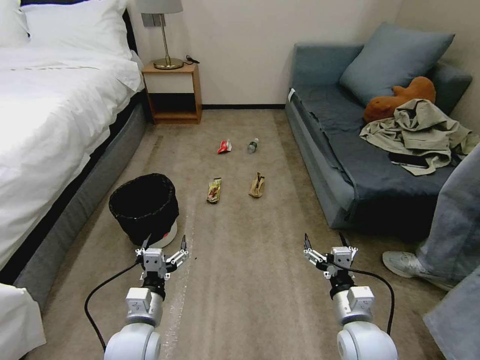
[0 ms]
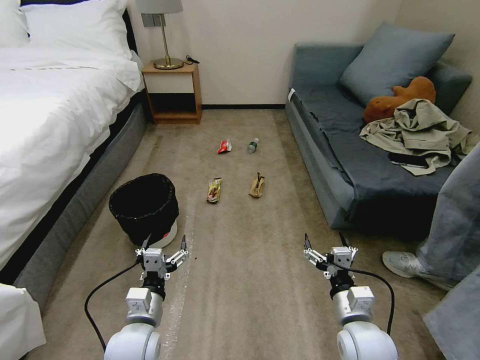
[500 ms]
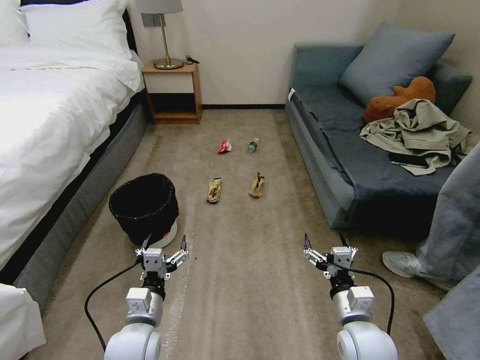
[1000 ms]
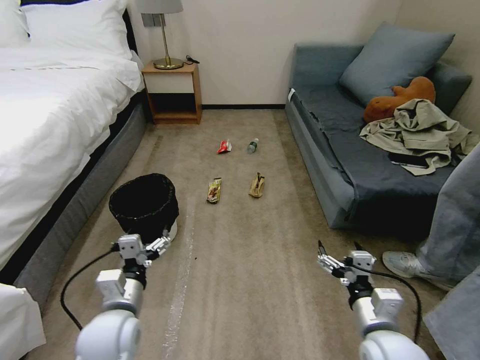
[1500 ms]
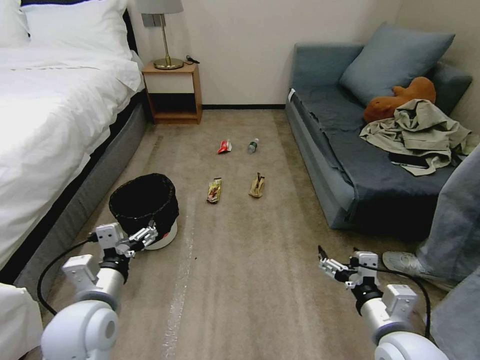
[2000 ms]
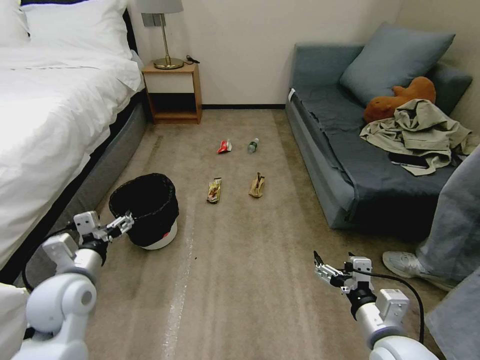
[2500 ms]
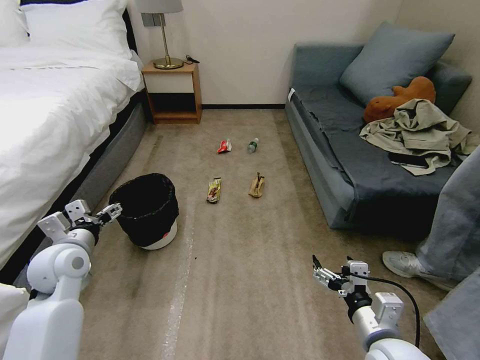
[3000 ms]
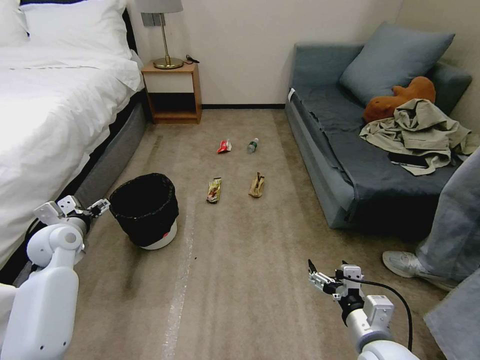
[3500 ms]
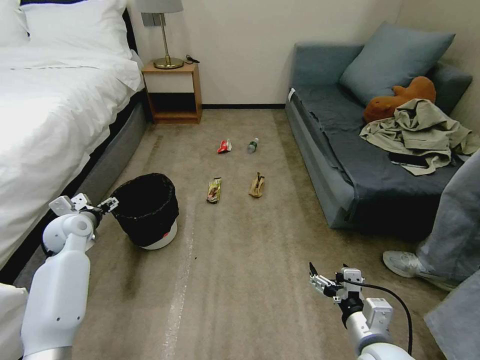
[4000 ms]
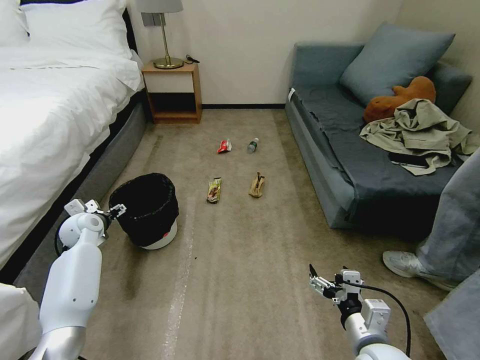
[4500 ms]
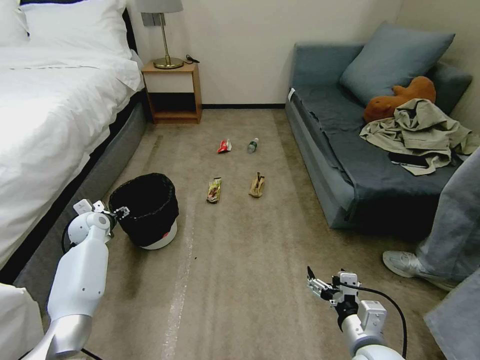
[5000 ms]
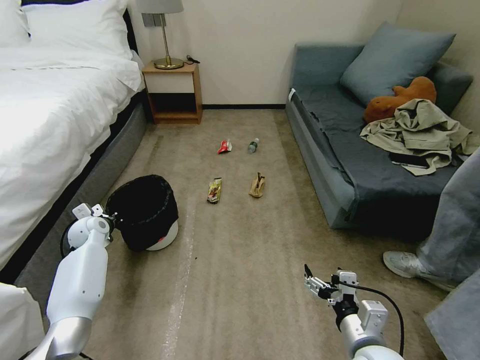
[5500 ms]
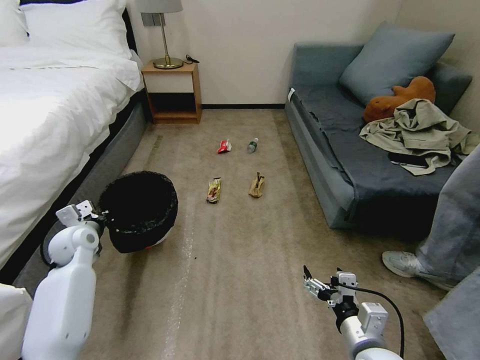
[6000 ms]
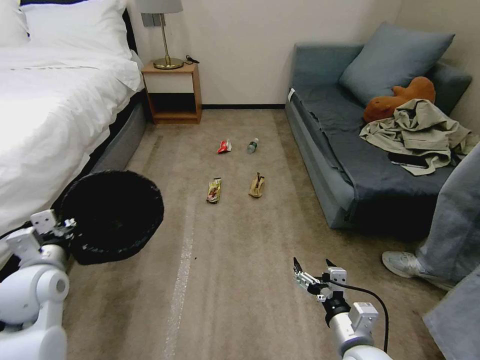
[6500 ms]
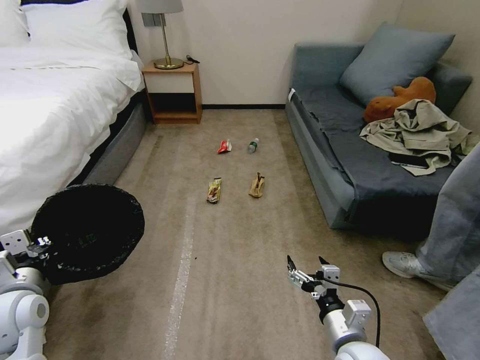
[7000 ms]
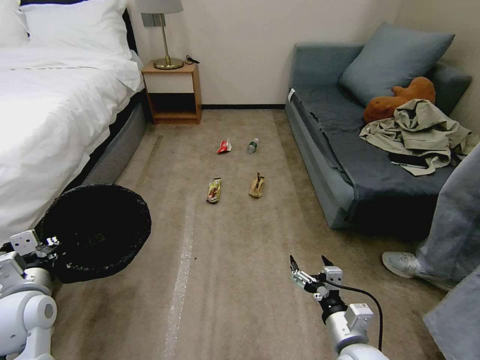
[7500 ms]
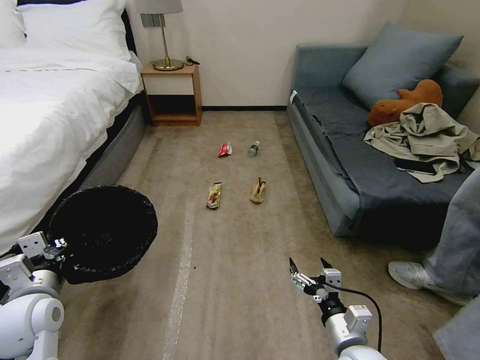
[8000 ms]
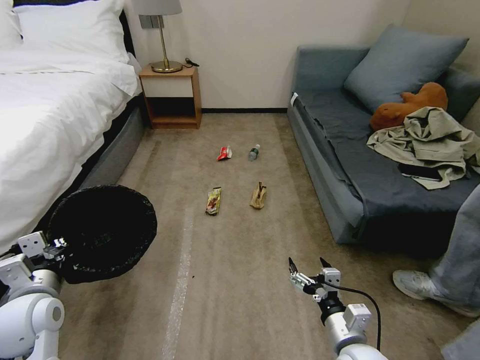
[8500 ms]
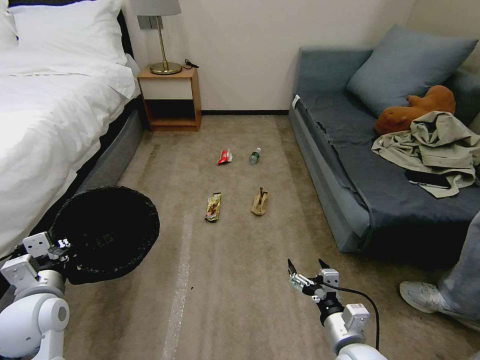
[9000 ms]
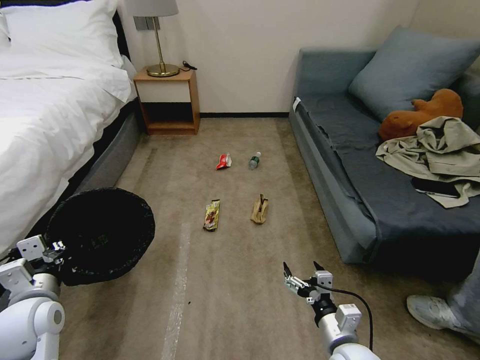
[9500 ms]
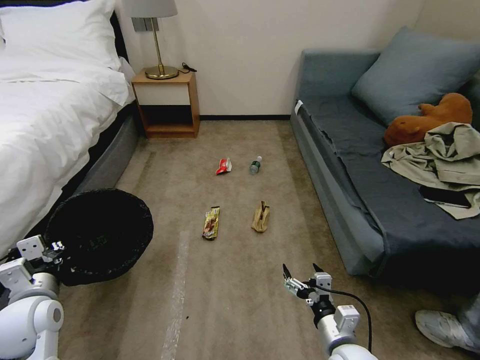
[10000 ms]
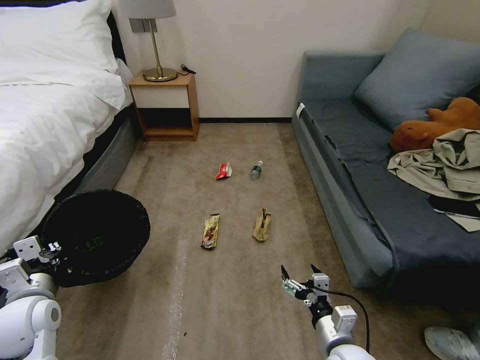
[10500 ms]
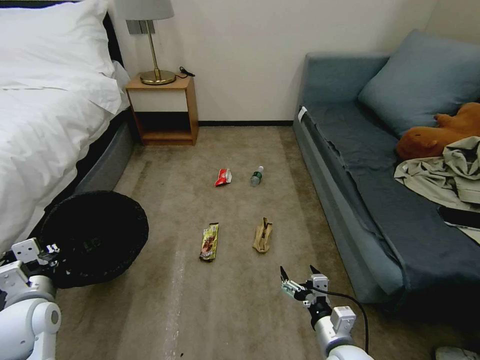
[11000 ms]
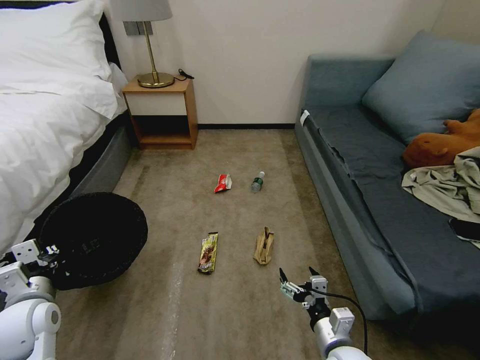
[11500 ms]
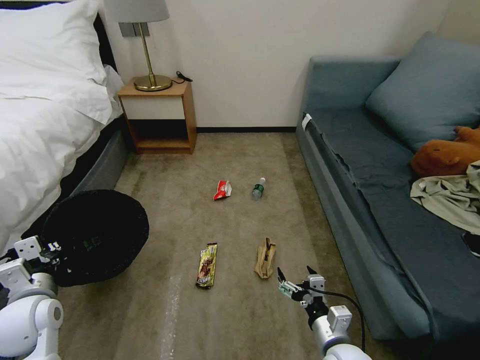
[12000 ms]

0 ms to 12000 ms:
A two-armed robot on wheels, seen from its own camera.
Task of the whole recording: Pick up the trash bin, then pick up the garbage on the floor and place it into the trash bin.
2000 ms to 4000 ms: The left gripper goes some 30 cm forward and to the left.
4000 ms to 6000 ms: The left gripper closes.
6000 ms to 8000 ms: The left gripper is displaced backward by roughly 15 cm.

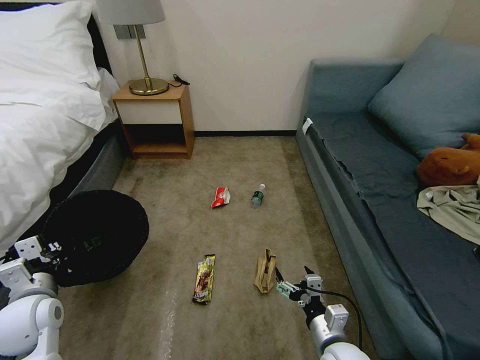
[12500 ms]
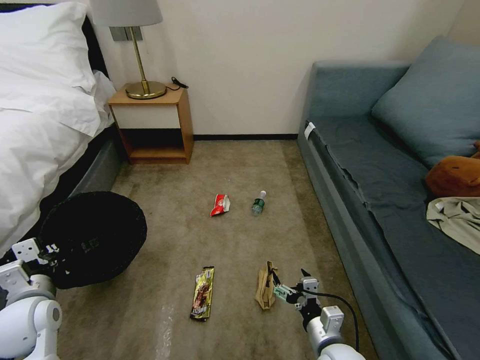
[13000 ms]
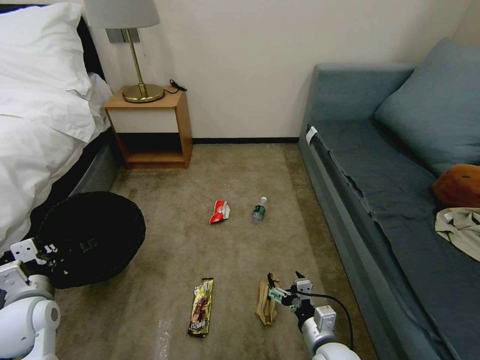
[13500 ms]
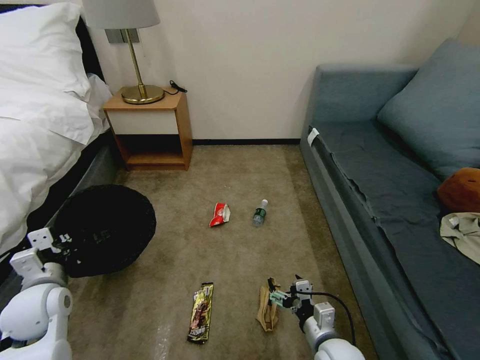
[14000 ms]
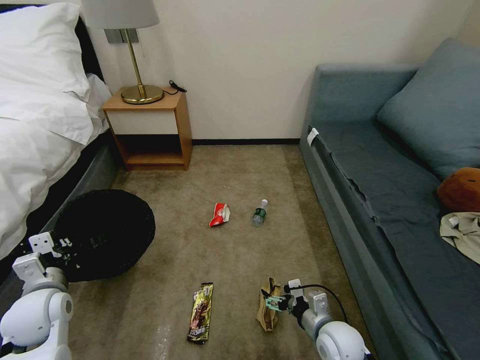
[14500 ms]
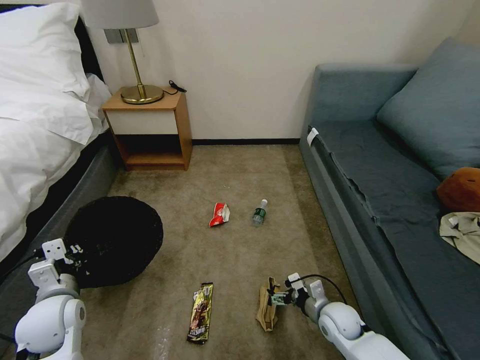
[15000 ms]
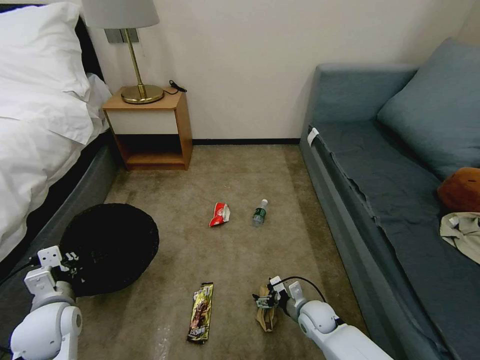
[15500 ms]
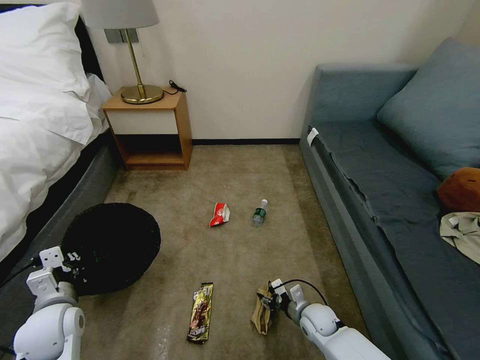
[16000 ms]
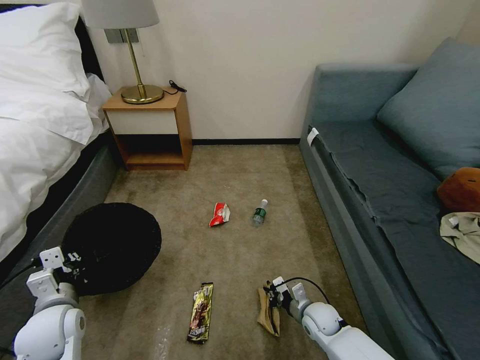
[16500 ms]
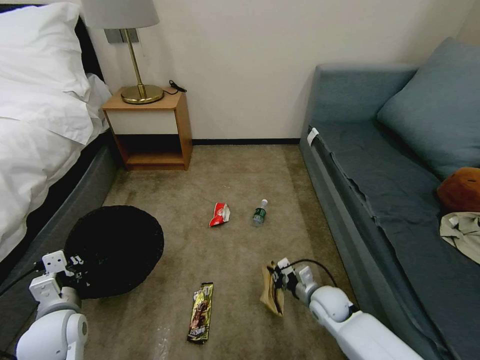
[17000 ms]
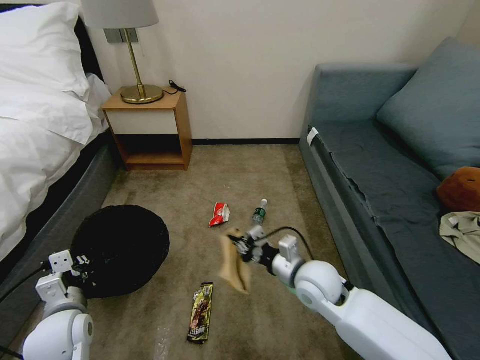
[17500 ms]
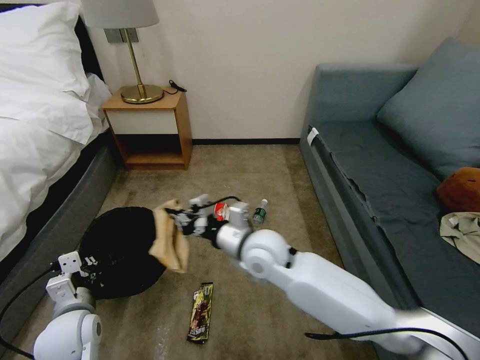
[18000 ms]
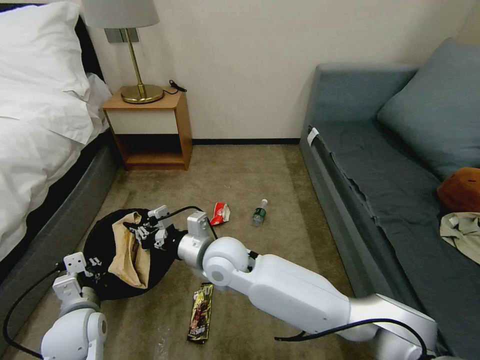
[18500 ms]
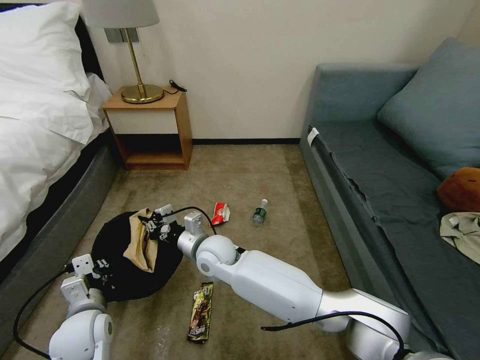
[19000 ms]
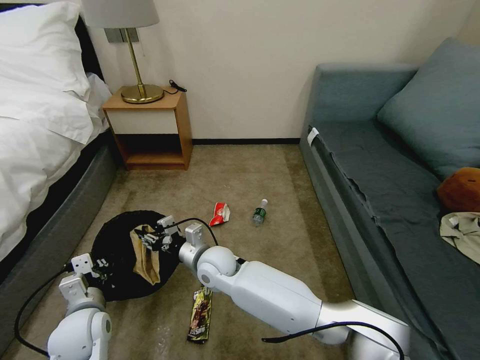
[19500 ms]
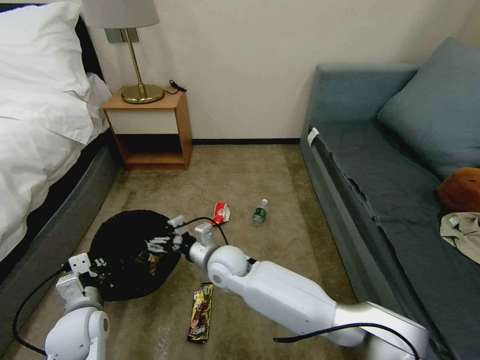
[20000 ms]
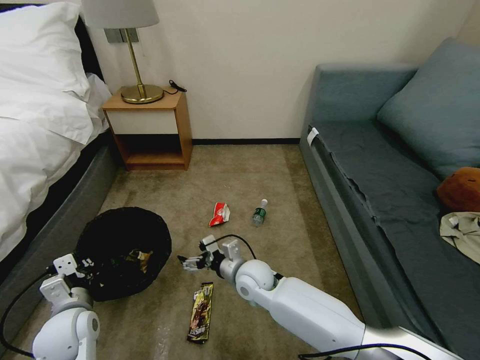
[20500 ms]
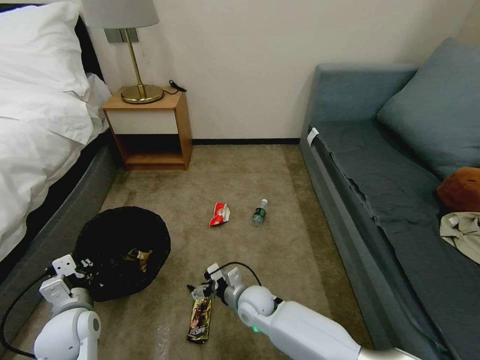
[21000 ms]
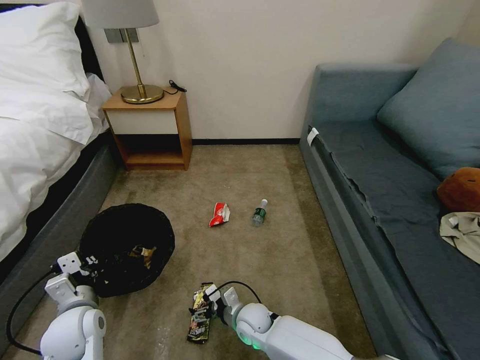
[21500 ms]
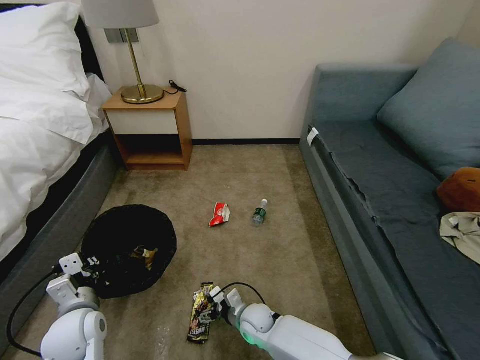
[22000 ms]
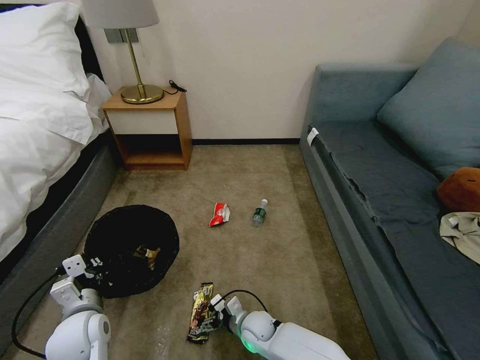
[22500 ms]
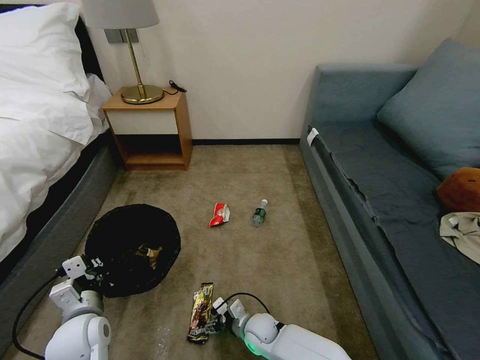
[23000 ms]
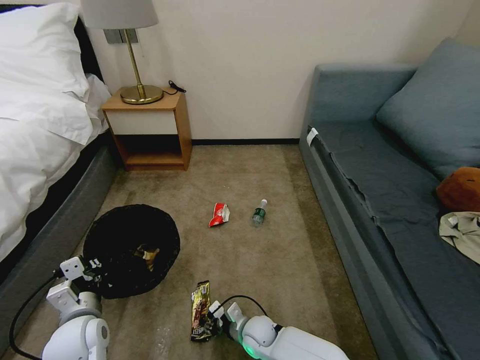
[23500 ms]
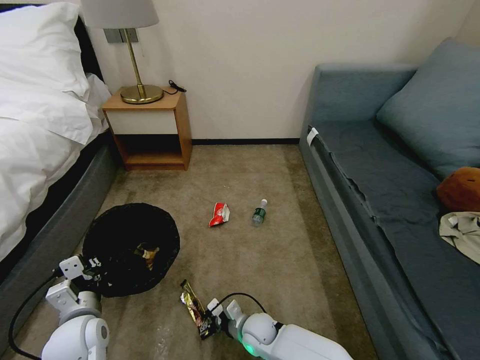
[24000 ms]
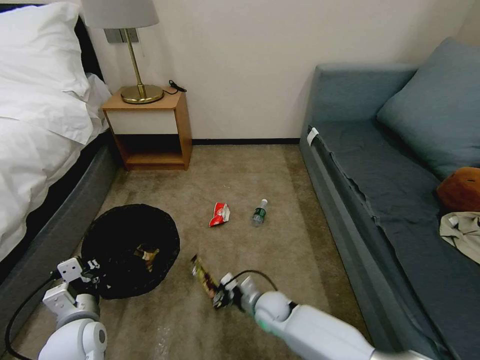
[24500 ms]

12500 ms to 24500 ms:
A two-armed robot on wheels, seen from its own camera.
Task of the whole recording: Pick up the trash bin, then pick up the garbage on the floor and place it into the trash bin.
12500 ms to 14500 ms: The right gripper shifts by roughly 5 cm.
14500 ms to 16500 ms: The right gripper is displaced downward and forward by approximately 10 cm, and closes up.
16500 ms to 18500 ms: The right gripper shifts some 35 cm to the left and upward.
18500 ms to 20500 ms: The right gripper heads downward and to the right, covering approximately 15 cm, and opens.
20500 ms to 22500 ms: The right gripper moves downward and backward, approximately 20 cm.
22500 ms to 24500 ms: The right gripper shifts by some 10 cm, and closes up.

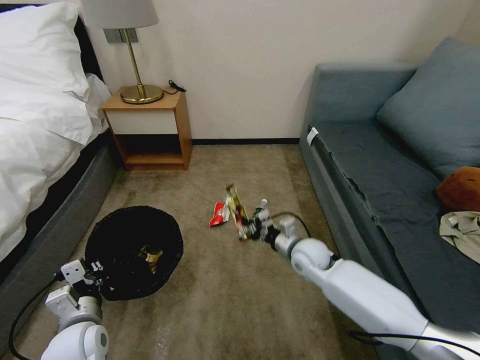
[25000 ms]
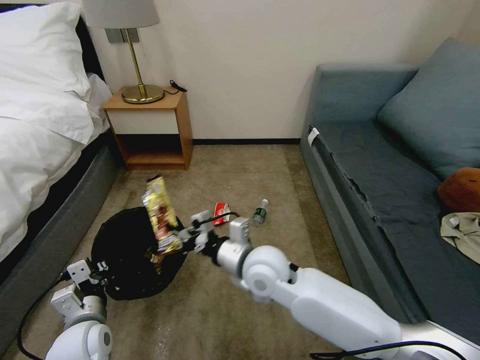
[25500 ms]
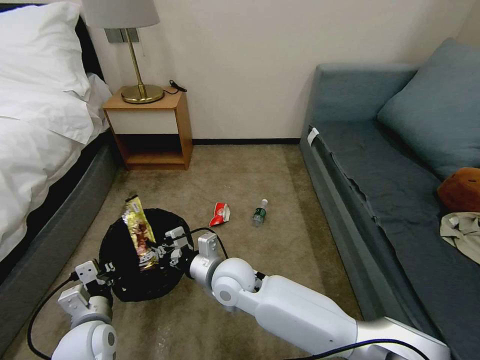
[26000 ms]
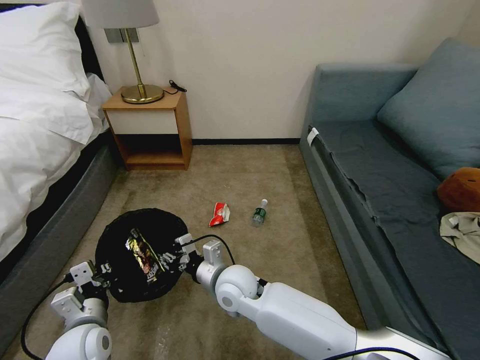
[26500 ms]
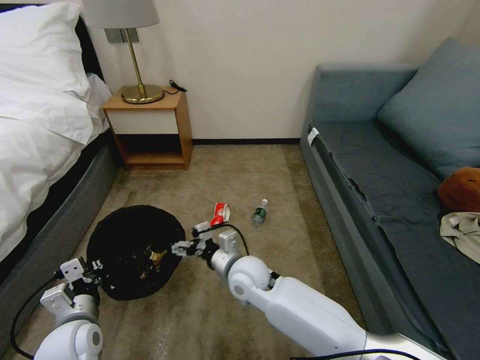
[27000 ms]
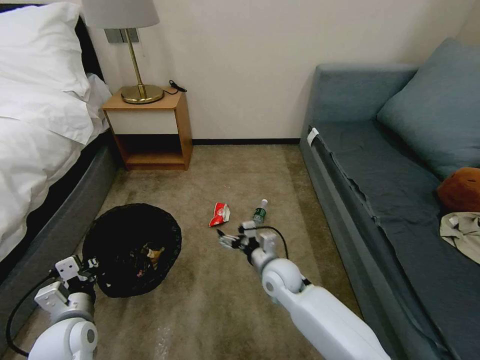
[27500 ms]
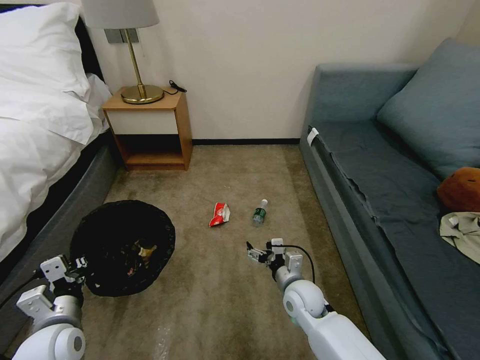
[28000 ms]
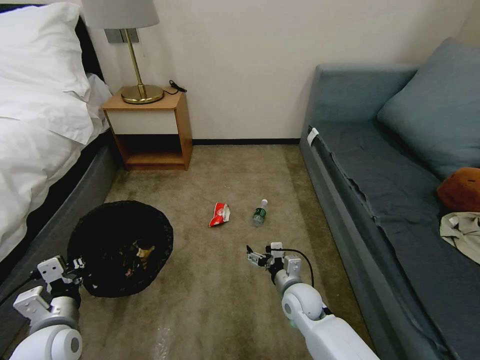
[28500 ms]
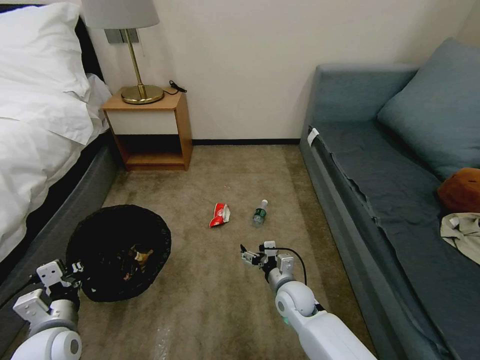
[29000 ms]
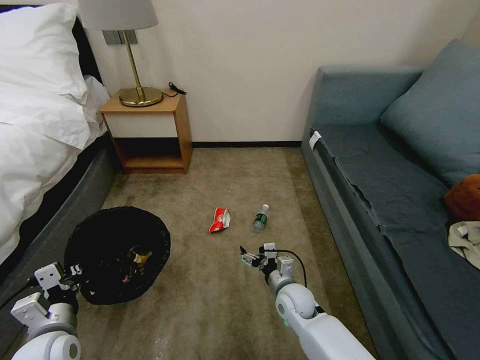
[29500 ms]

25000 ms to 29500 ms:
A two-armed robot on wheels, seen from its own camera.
Task of the whole recording: Pick up the trash bin, then pick up the garbage on the floor and place it into the trash bin.
25000 ms to 27000 ms: The right gripper goes some 20 cm to the left and backward, and opens its fingers.
27000 ms to 29500 ms: The right gripper travels to the right and downward by some 15 cm.
